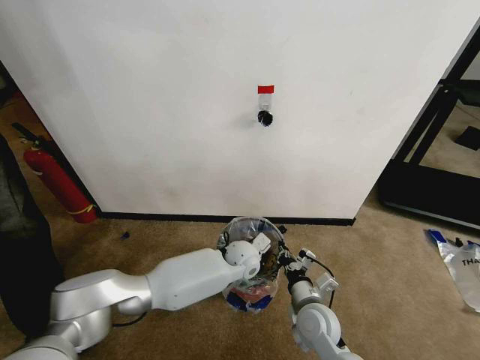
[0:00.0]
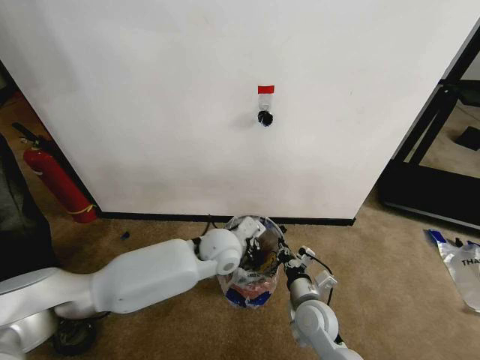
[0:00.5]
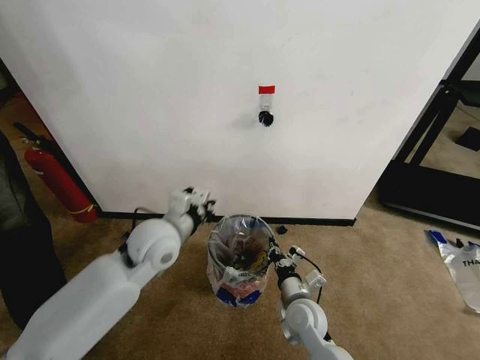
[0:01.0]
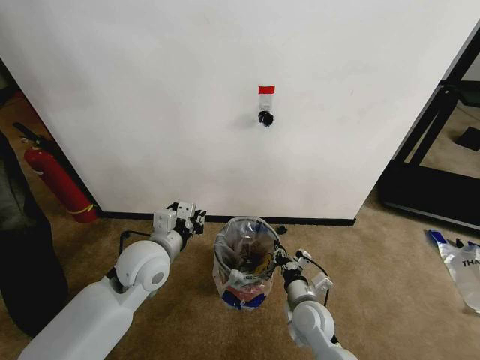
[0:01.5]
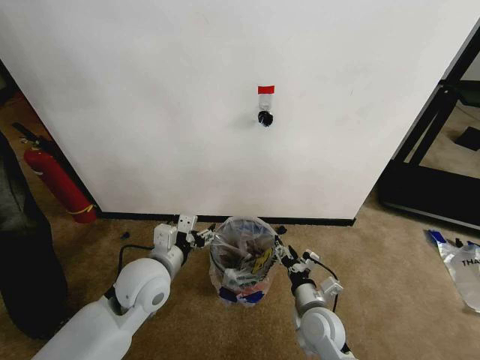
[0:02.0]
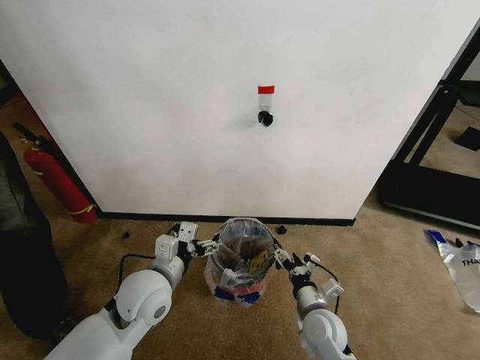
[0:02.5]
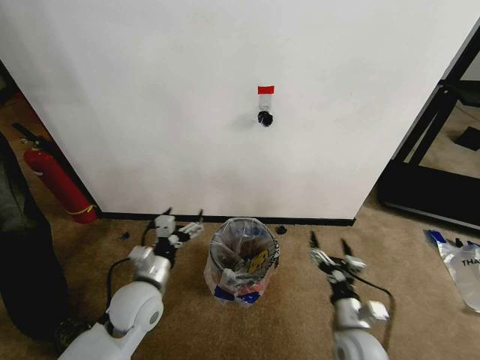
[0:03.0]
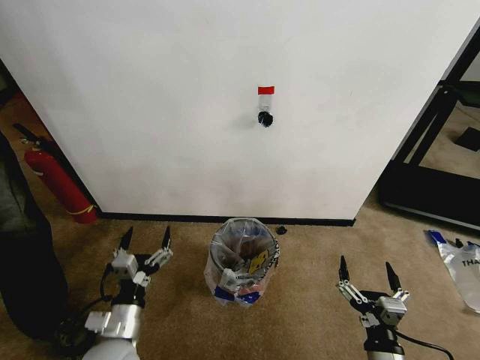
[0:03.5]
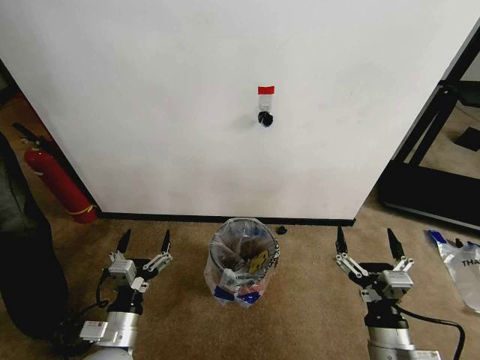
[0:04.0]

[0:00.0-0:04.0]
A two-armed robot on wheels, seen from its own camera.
Task of the whole recording: Pick up the garbage bag from the wall and place it over the trash bin.
0:00.0 to 0:02.0: The left gripper shifts roughly 25 cm to the left, upward and backward, and opens, while the right gripper opens.
0:02.0 to 0:04.0: The right gripper shifts approximately 20 cm backward, upward and to the right, while the left gripper travels backward, downward and to the left by approximately 15 cm.

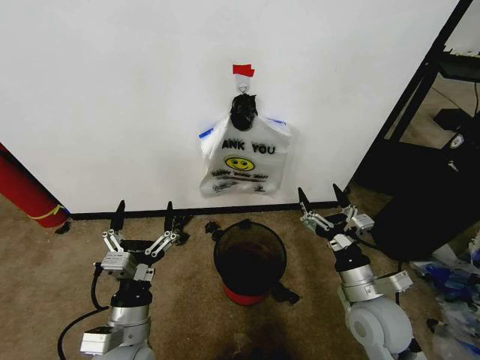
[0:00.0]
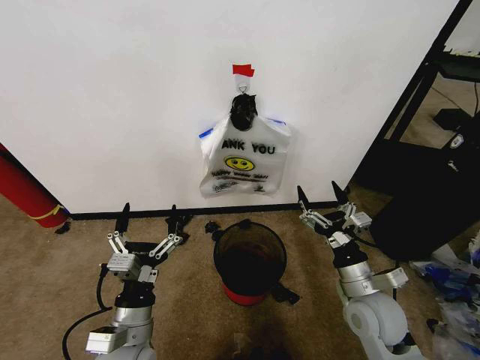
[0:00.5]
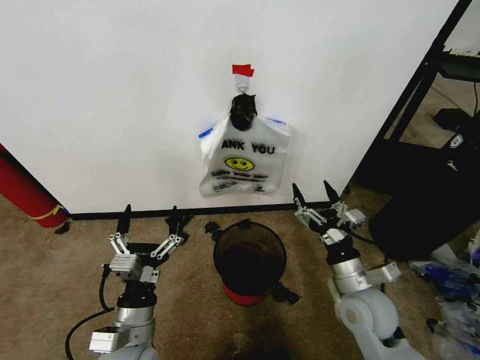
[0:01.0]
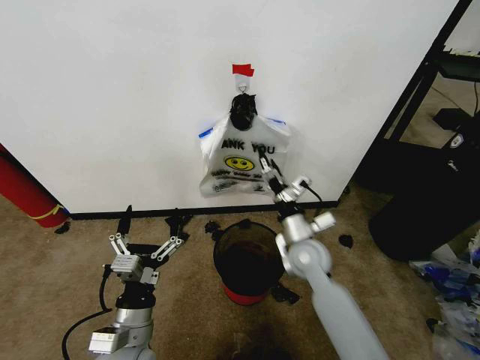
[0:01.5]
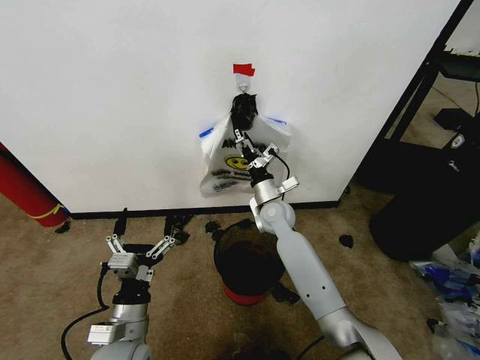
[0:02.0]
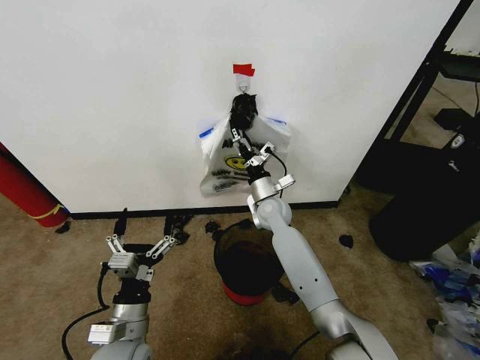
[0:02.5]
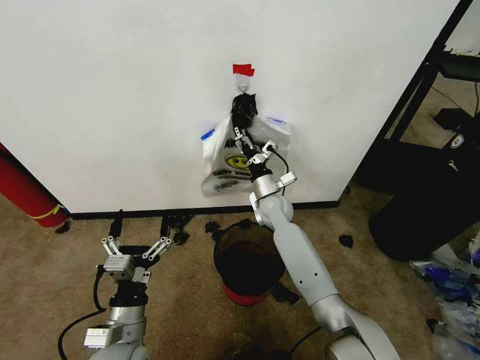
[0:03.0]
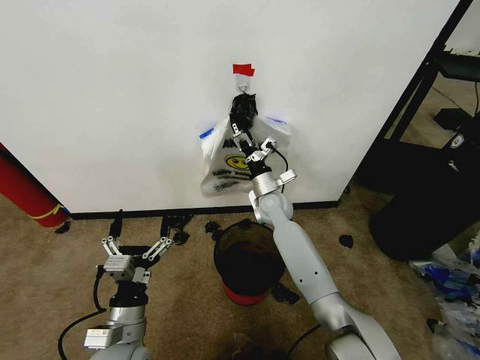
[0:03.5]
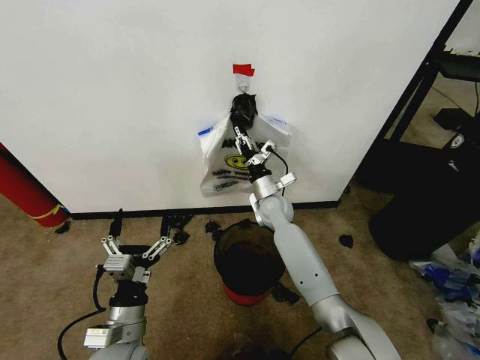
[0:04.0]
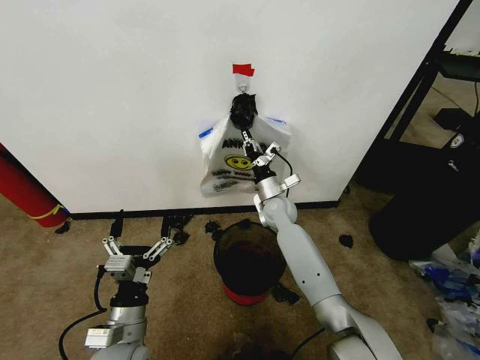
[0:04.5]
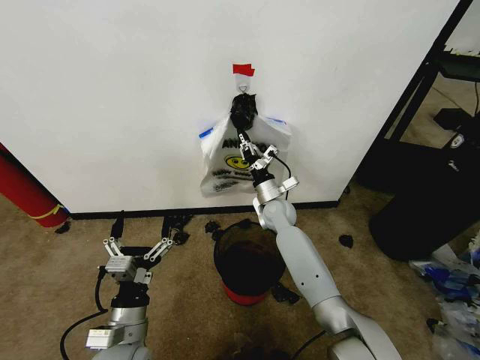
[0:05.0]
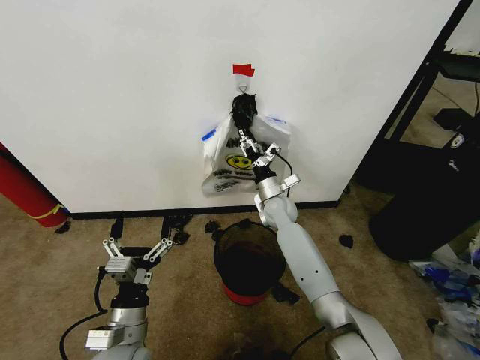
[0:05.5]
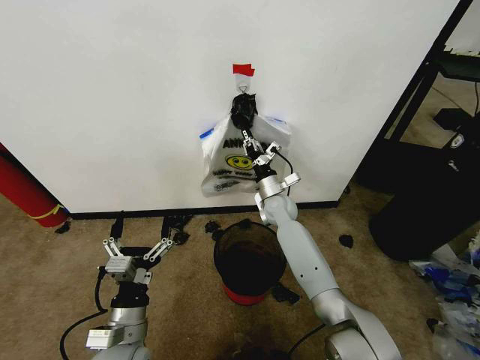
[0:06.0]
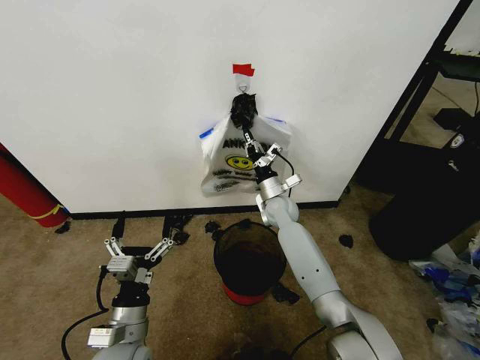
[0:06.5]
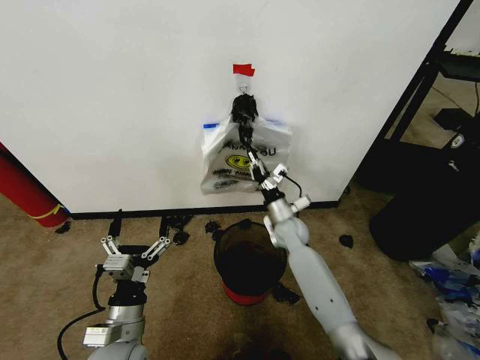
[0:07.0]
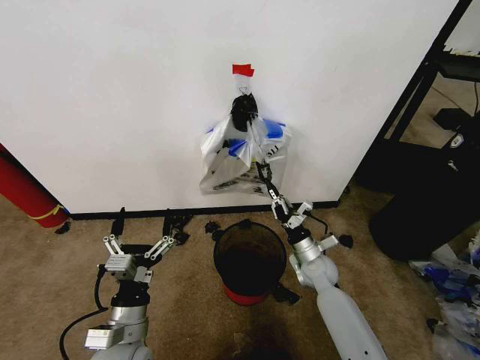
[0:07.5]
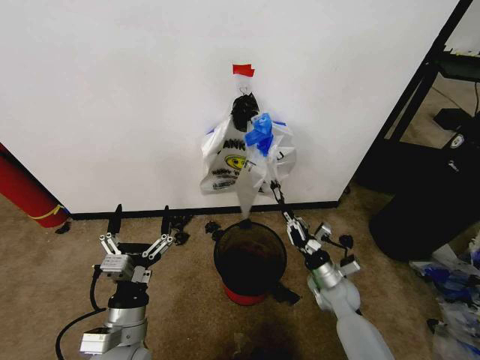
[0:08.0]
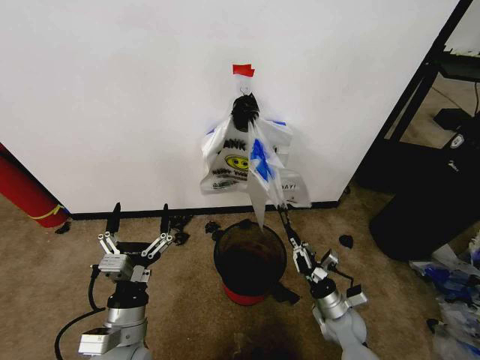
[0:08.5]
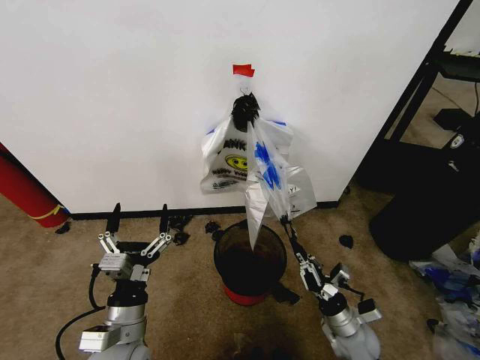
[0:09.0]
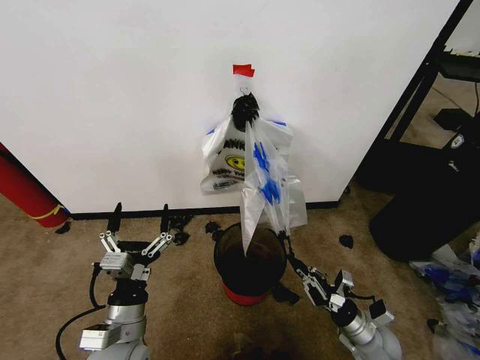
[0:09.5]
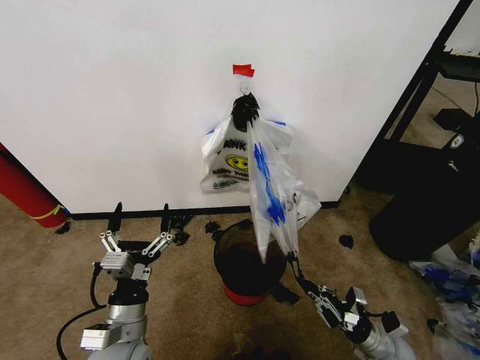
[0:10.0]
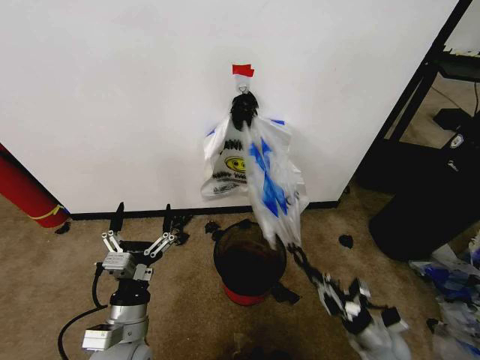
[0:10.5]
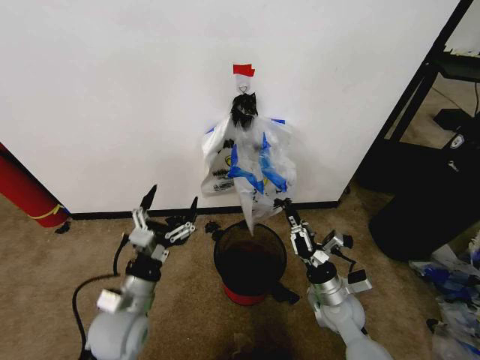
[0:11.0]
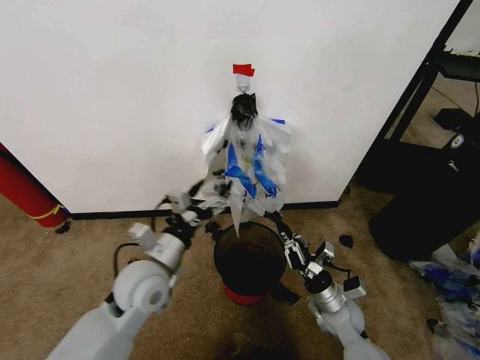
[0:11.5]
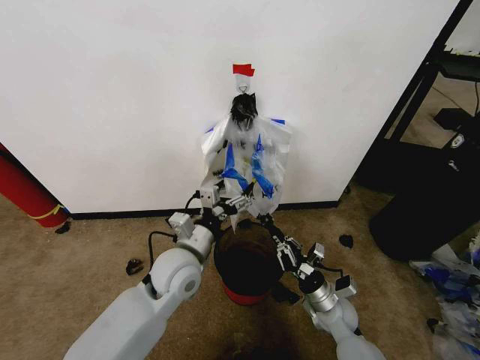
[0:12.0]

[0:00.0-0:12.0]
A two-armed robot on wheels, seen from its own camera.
Task of the whole recording: Pick up the garbage bag from the wall and place it over the trash bin.
0:02.0 to 0:04.0: The right gripper closes its fingers.
0:04.0 to 0:06.0: The grippers move only a little.
0:06.0 to 0:08.0: The right gripper goes about 25 cm backward, to the right and downward.
0:08.0 to 0:10.0: The right gripper heads backward and to the right, covering approximately 15 cm.
0:10.0 to 0:12.0: The right gripper shifts roughly 15 cm to the left and forward. The left gripper heads forward, to the right and upward, covering approximately 15 cm.

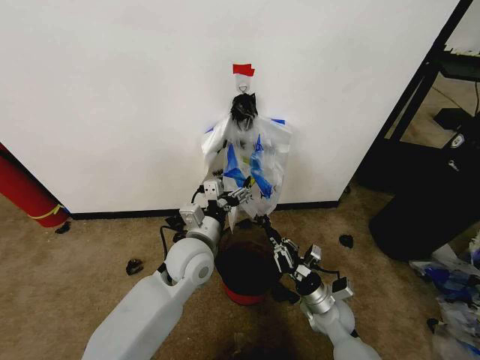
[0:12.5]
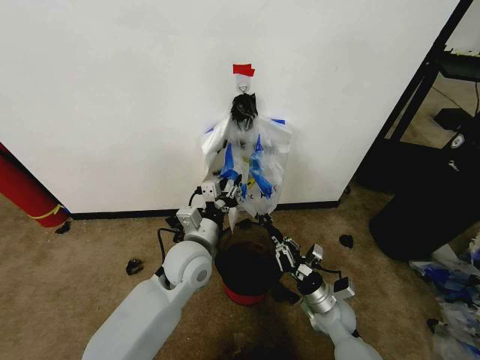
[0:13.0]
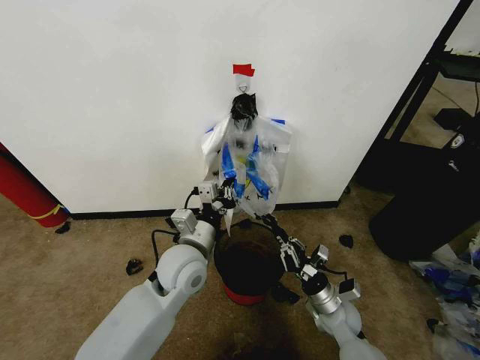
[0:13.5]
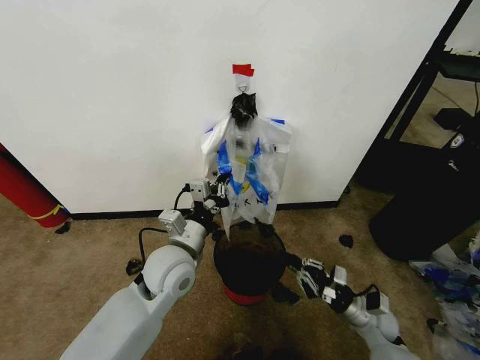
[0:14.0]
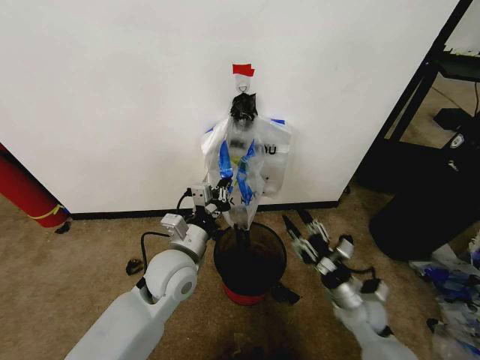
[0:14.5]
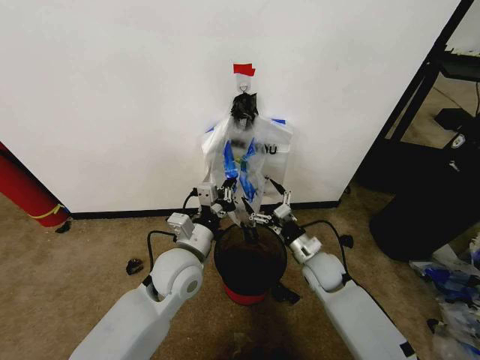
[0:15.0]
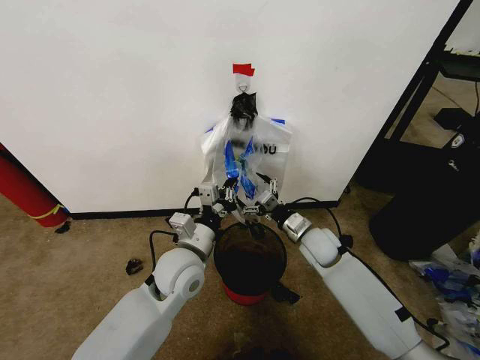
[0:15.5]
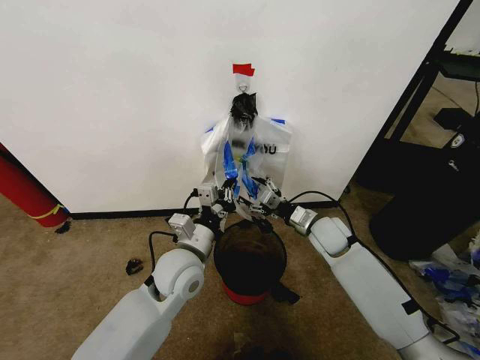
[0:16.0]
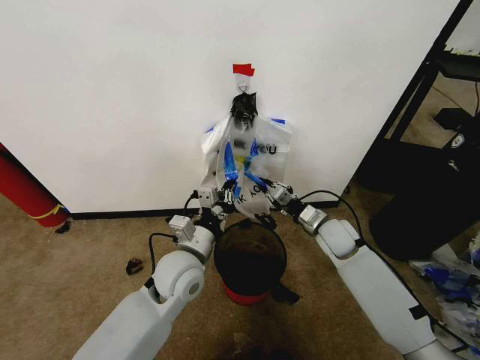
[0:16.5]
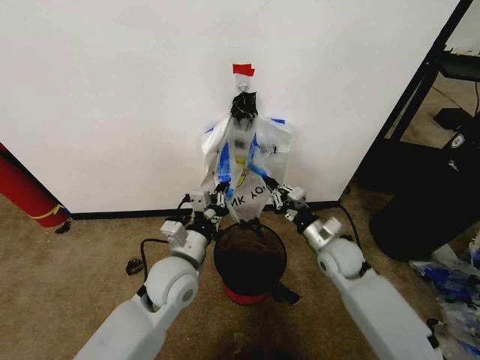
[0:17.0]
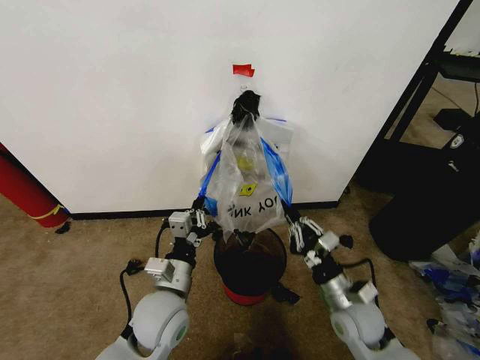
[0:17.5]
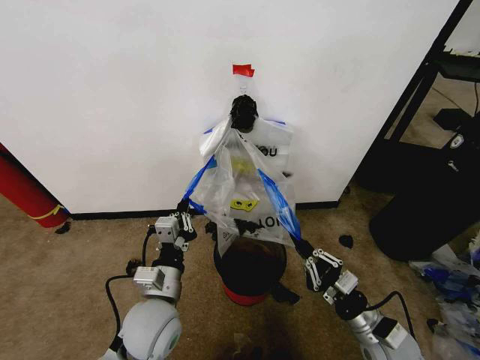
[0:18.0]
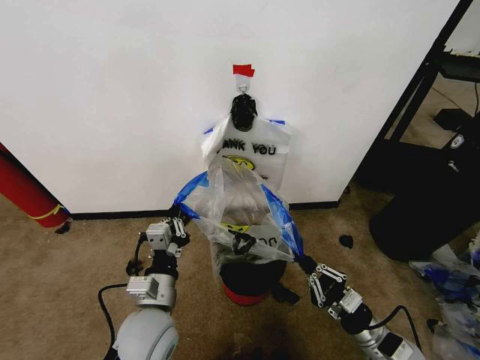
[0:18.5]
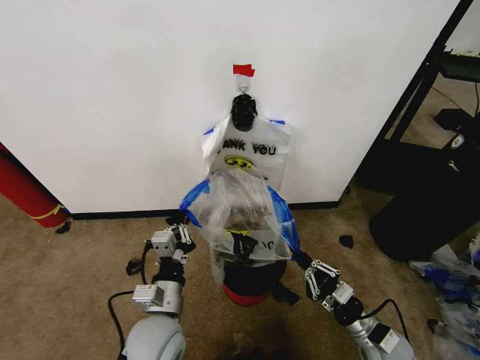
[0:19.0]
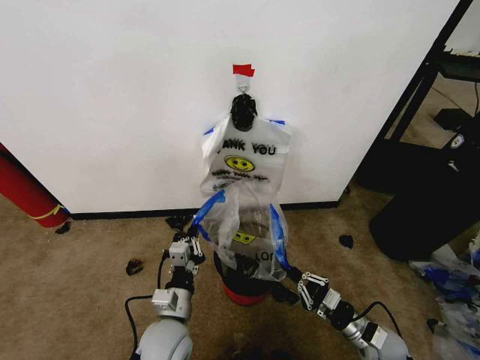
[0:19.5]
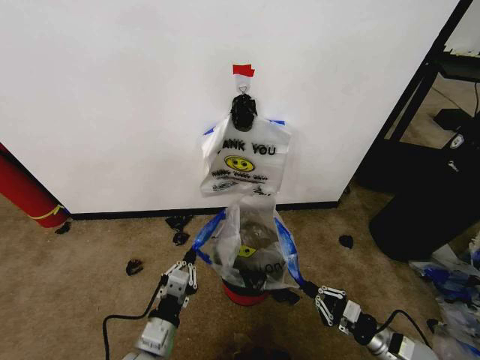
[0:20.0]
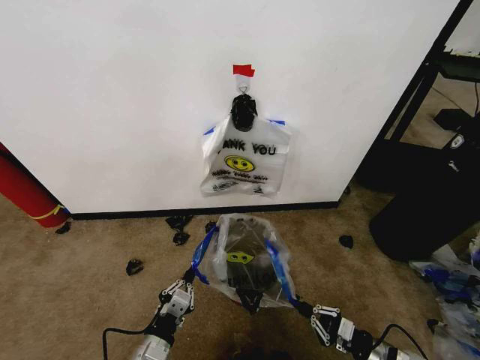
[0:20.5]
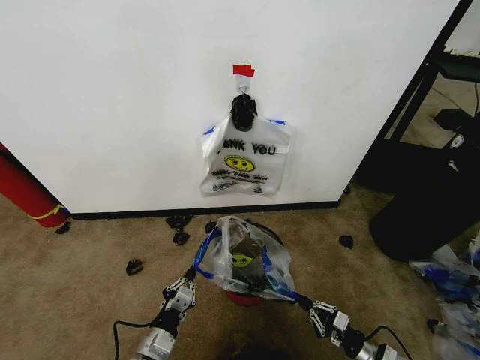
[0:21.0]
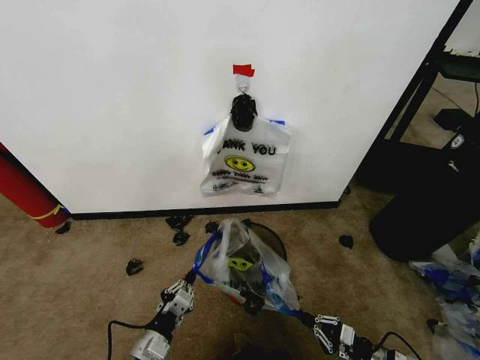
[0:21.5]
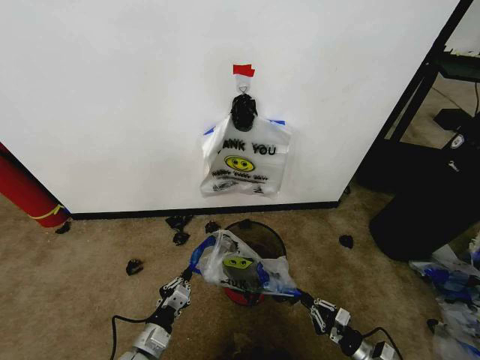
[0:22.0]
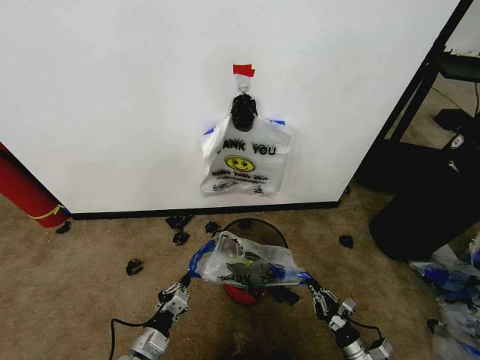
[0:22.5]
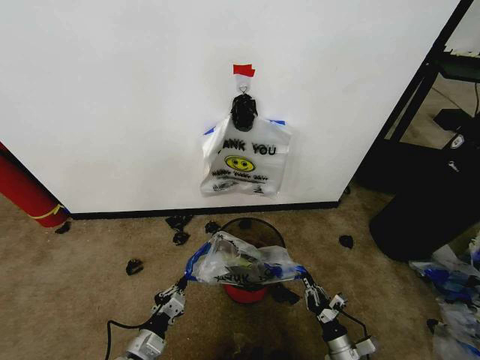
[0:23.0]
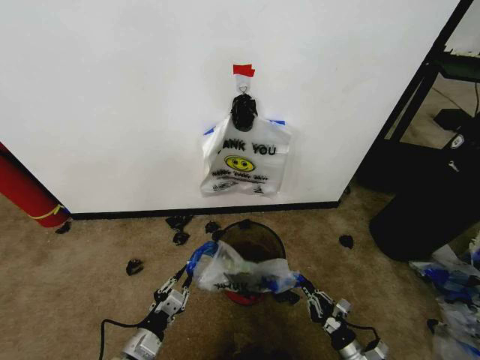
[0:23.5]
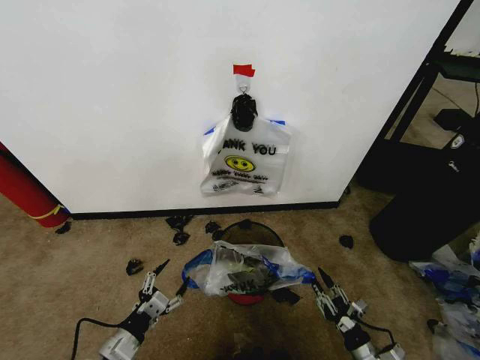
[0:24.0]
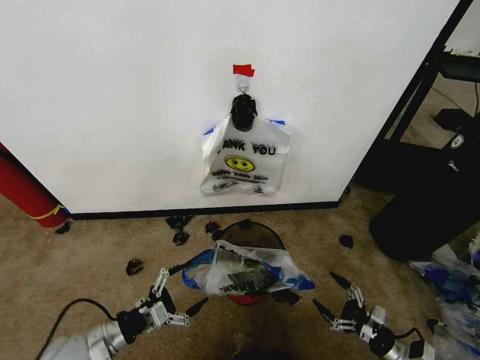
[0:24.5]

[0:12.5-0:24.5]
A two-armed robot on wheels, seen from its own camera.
Task of the whole recording: Pick up the garbage bag from the wall and place it over the trash bin.
0:12.5 to 0:14.5: The right gripper moves upward, some 5 cm, and opens up. Meanwhile the left gripper closes up.
0:14.5 to 0:16.5: The right gripper heads forward and upward, covering some 15 cm, and opens, then closes again.
0:16.5 to 0:18.5: The left gripper heads backward, covering roughly 10 cm; the right gripper travels backward by approximately 25 cm.
0:18.5 to 0:20.5: The right gripper moves downward and to the right, some 10 cm; the left gripper travels downward and backward by about 15 cm.
0:20.5 to 0:22.5: Both grippers move downward, about 5 cm.
0:22.5 to 0:24.5: The left gripper shifts about 15 cm upward and to the left, and opens up. The right gripper heads to the right and upward, covering roughly 10 cm, and opens its fingers.
